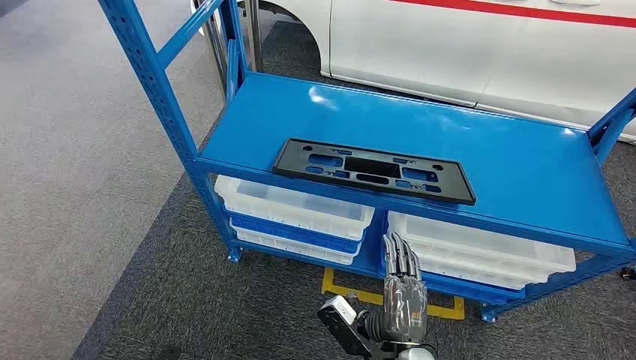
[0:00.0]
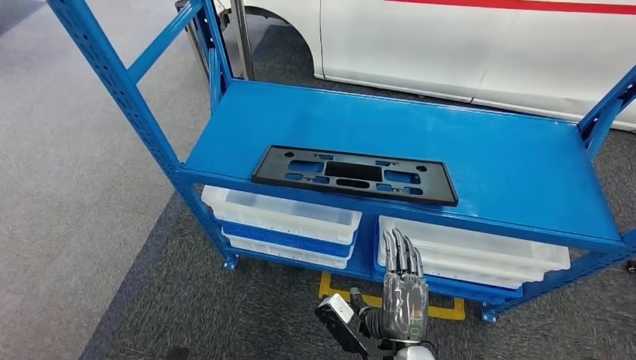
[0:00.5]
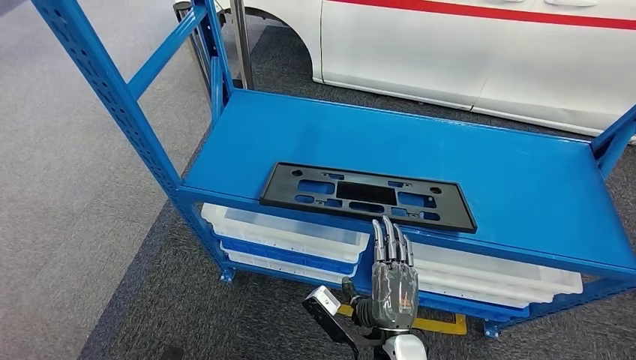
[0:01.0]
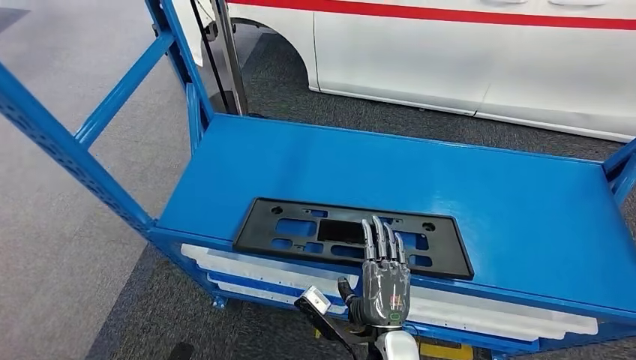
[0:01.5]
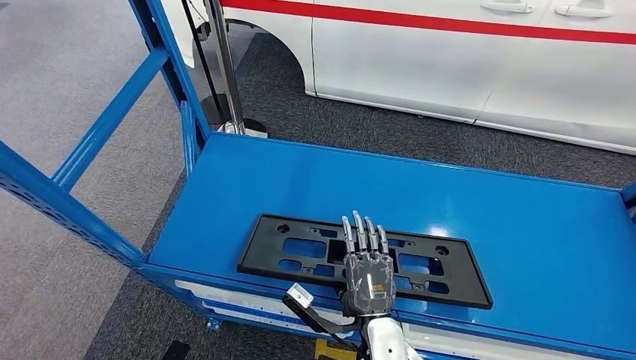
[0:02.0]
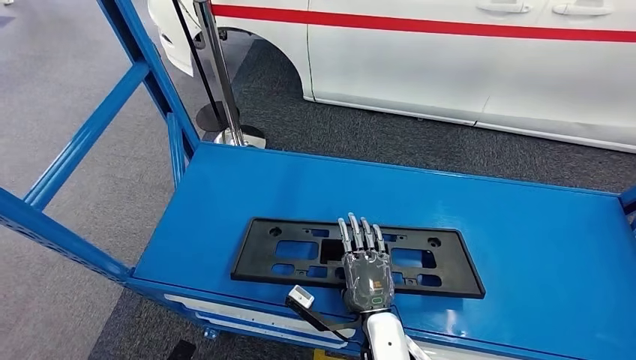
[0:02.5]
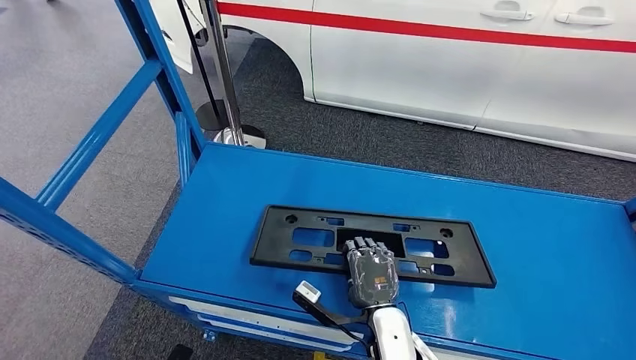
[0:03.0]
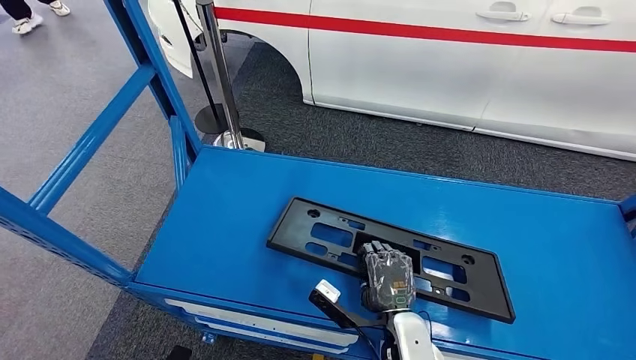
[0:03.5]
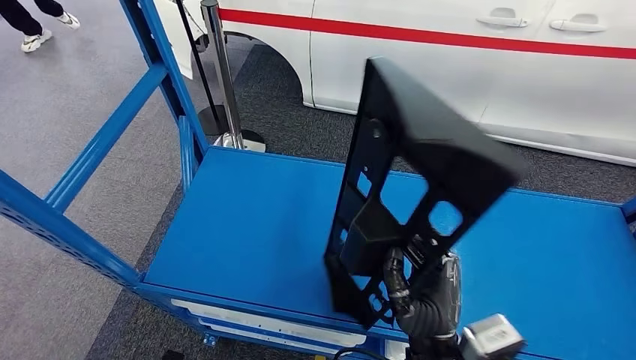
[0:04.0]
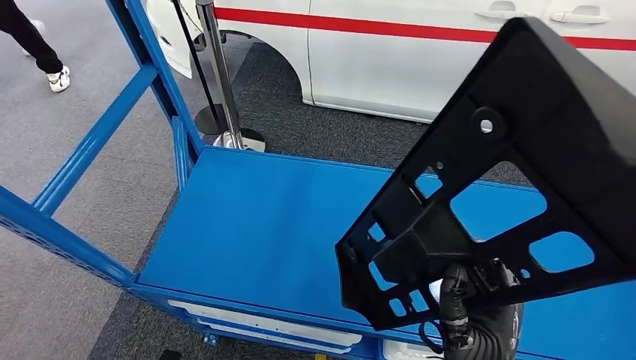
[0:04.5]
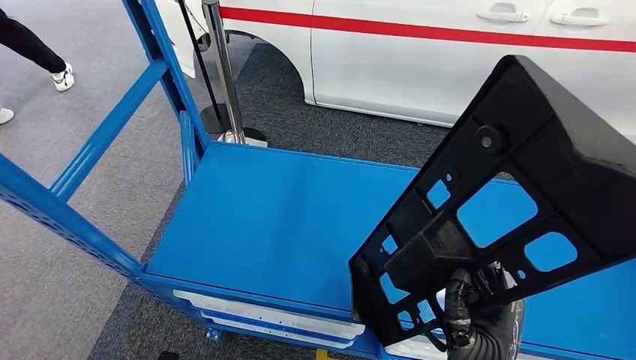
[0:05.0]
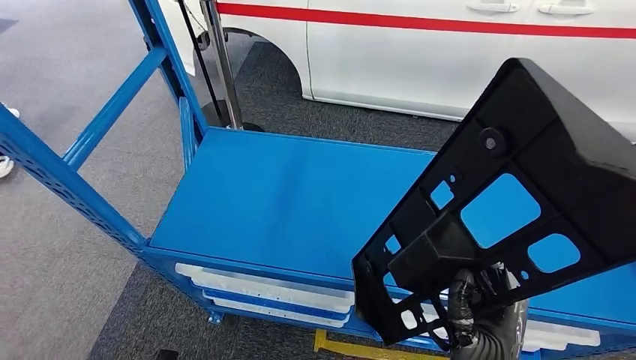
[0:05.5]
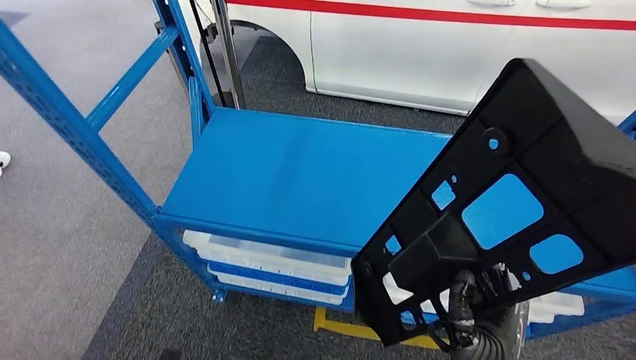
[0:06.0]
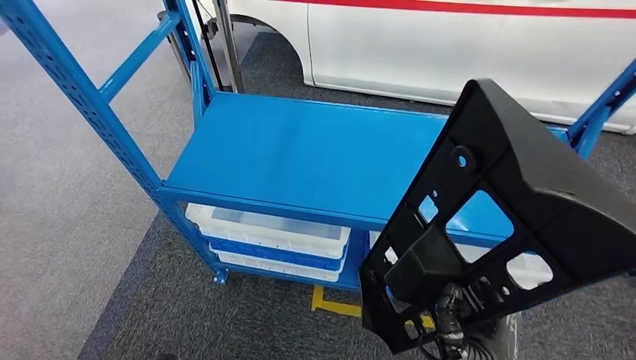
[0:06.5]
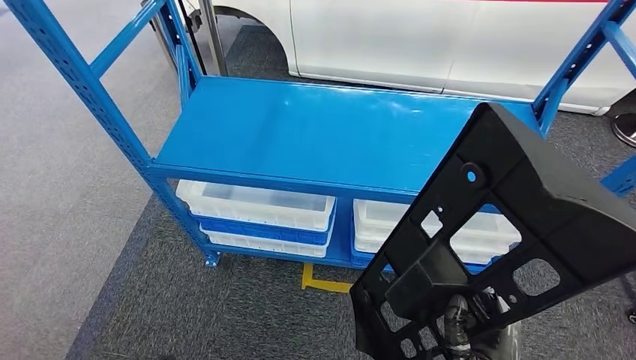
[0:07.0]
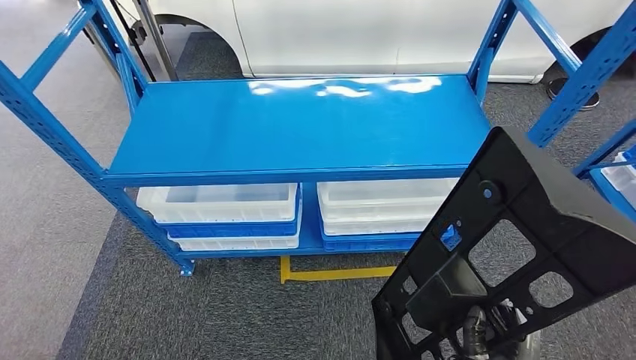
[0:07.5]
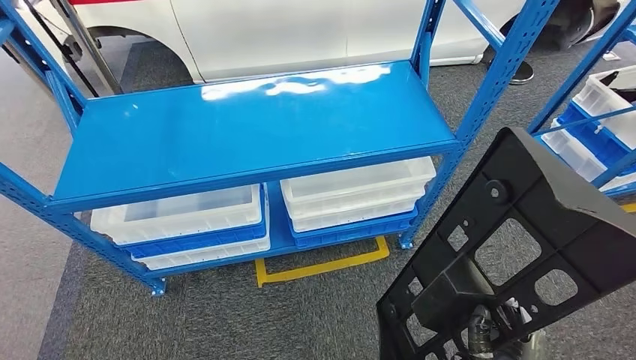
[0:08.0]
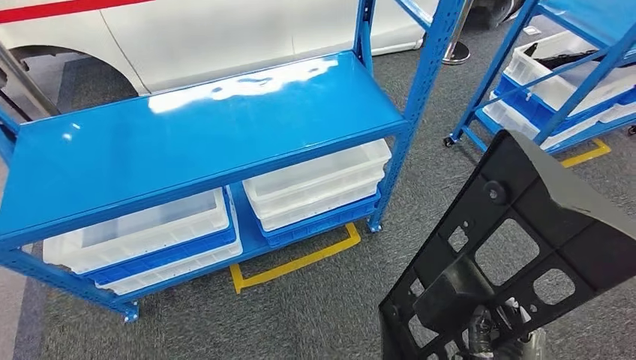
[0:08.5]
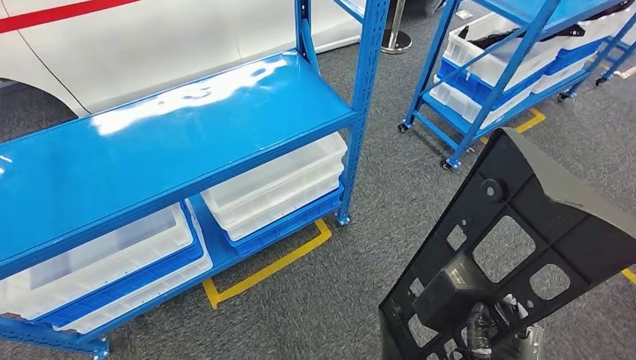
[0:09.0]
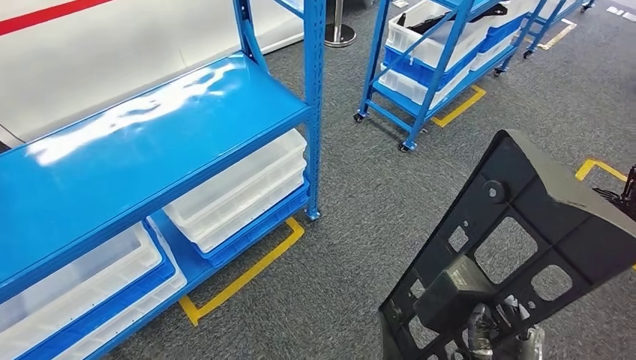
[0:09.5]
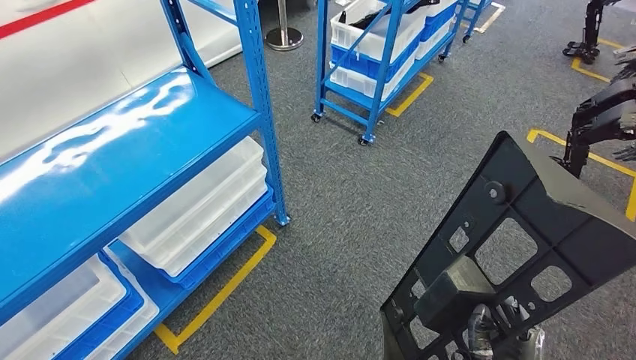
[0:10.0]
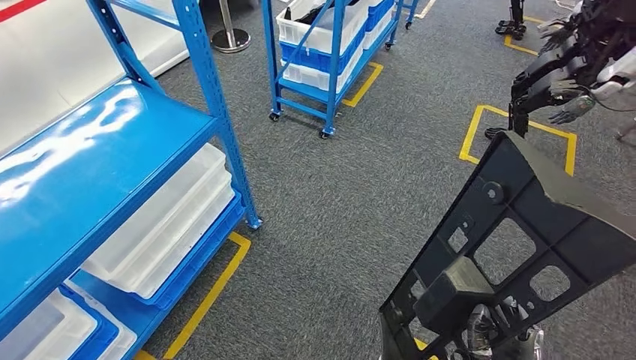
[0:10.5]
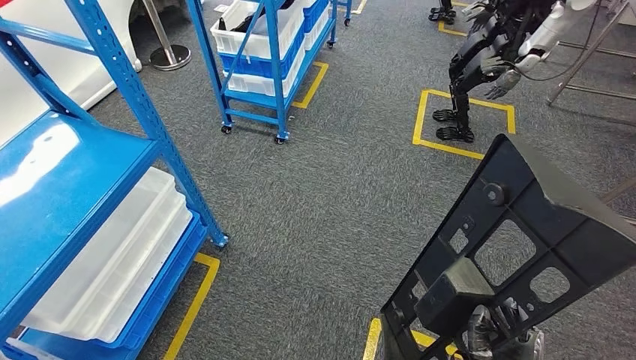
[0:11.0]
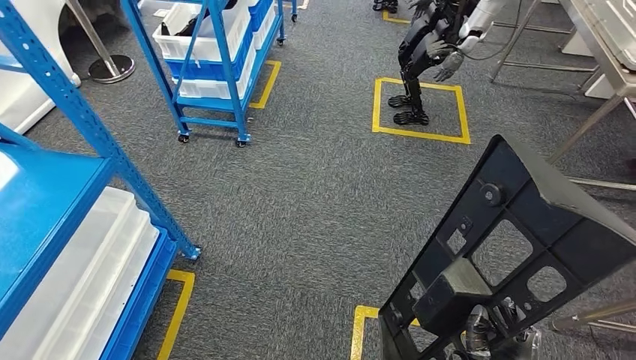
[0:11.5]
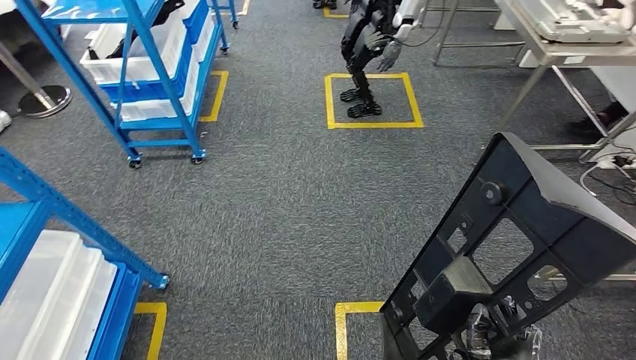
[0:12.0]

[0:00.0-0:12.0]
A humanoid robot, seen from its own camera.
Step, 0:00.0 to 0:05.0: Pick up the large material from the shelf.

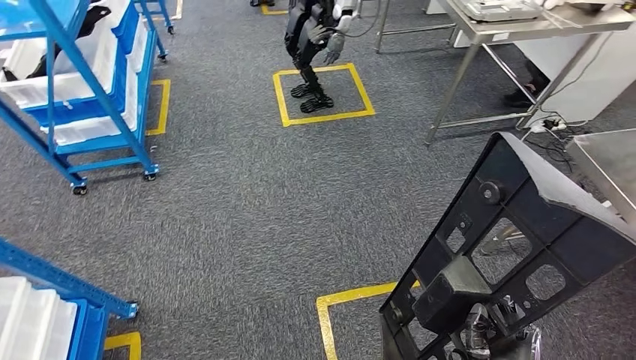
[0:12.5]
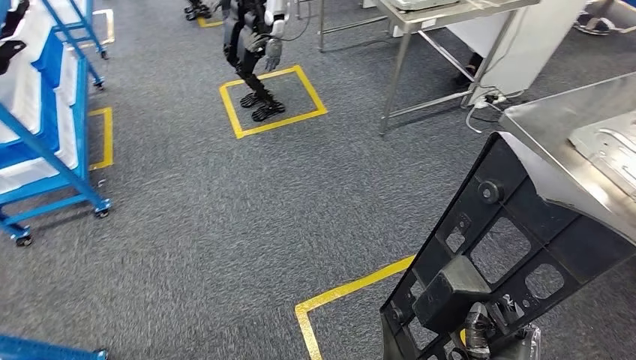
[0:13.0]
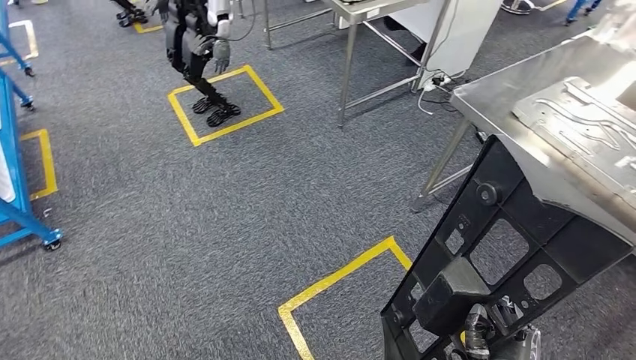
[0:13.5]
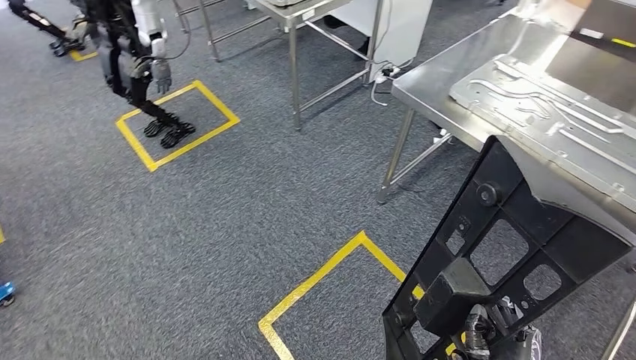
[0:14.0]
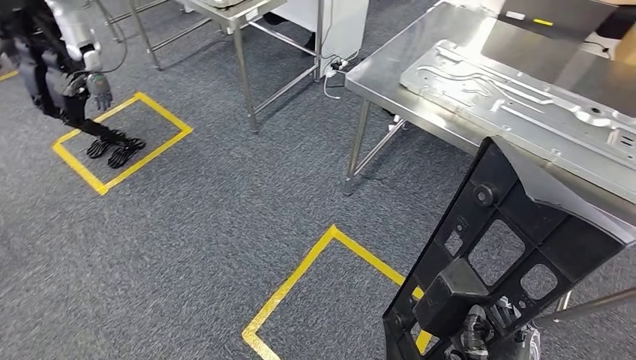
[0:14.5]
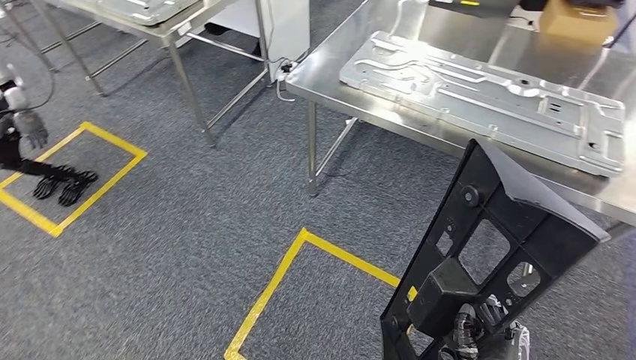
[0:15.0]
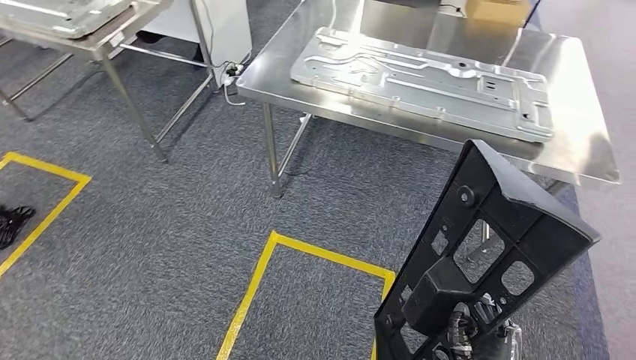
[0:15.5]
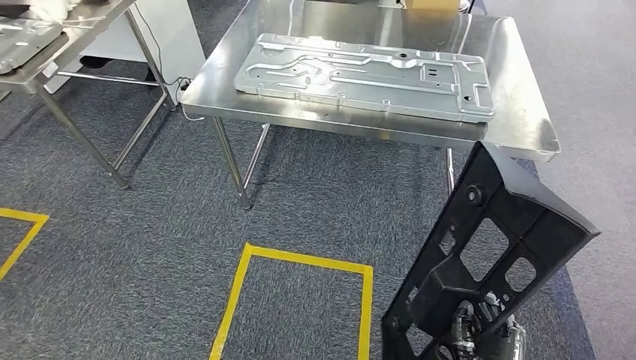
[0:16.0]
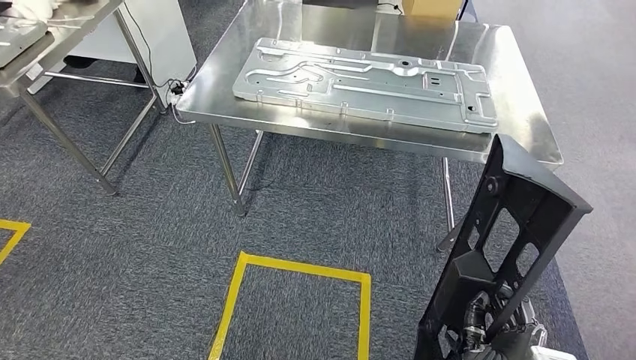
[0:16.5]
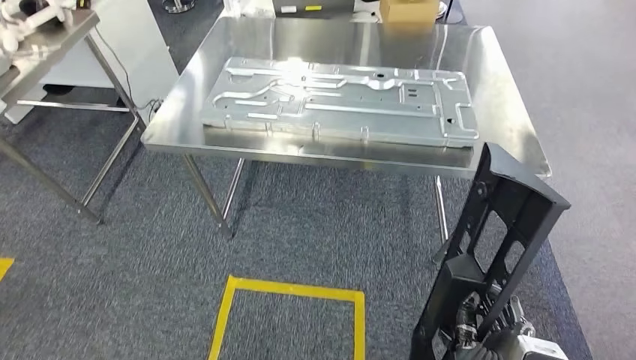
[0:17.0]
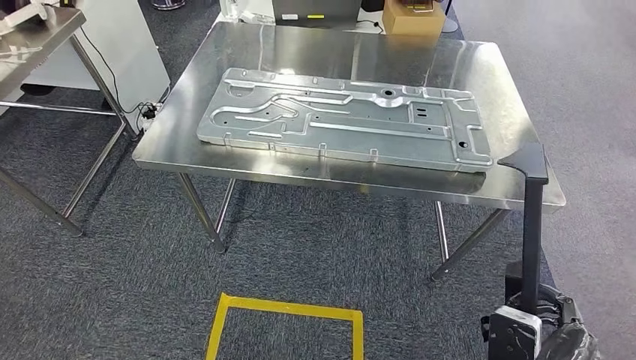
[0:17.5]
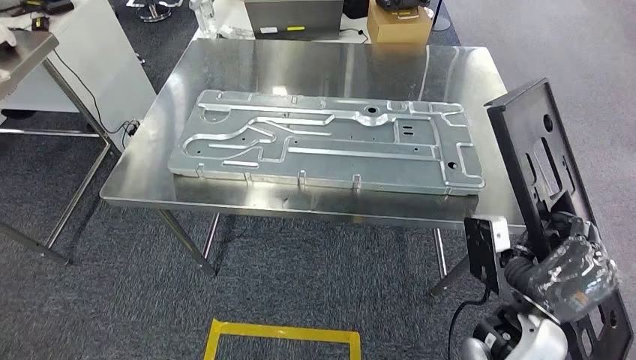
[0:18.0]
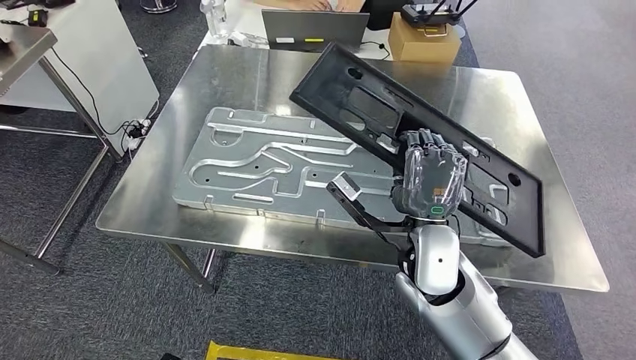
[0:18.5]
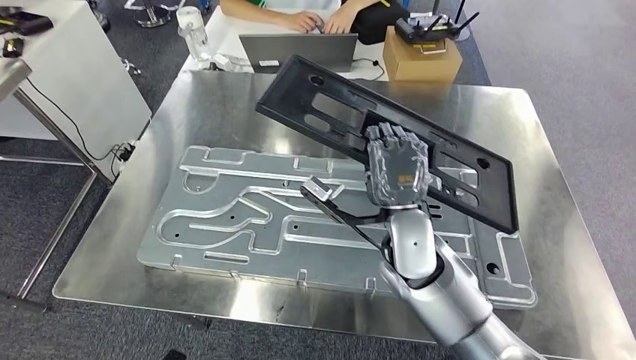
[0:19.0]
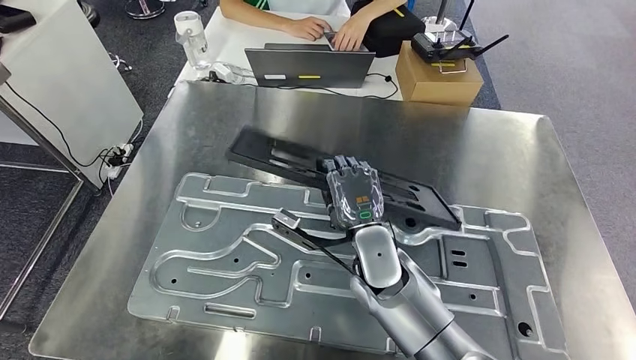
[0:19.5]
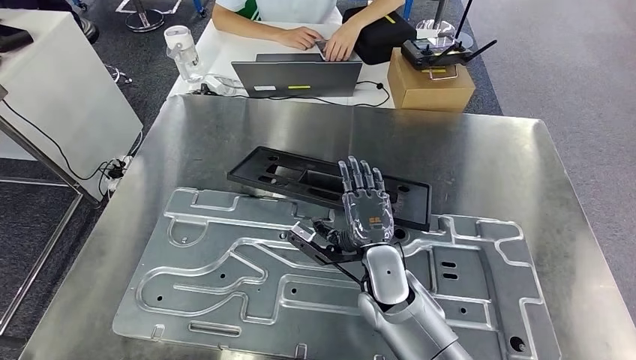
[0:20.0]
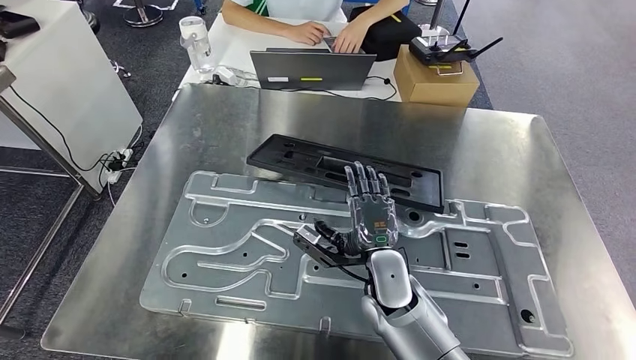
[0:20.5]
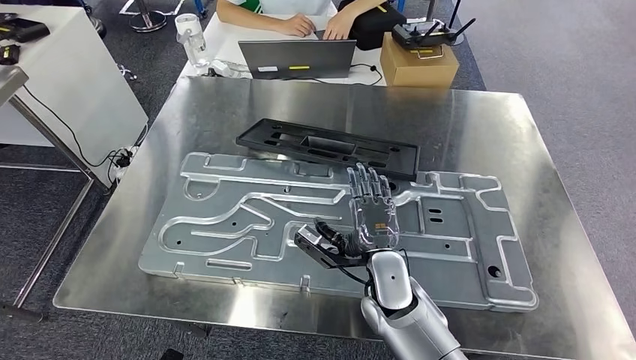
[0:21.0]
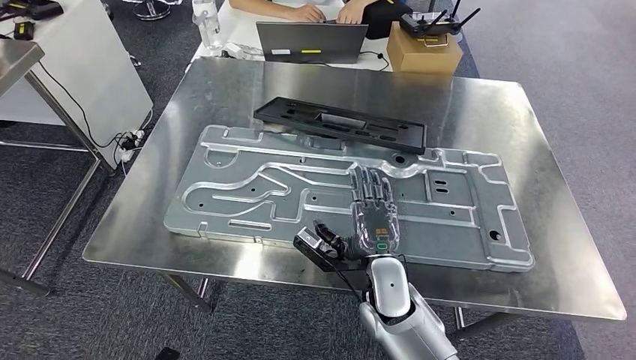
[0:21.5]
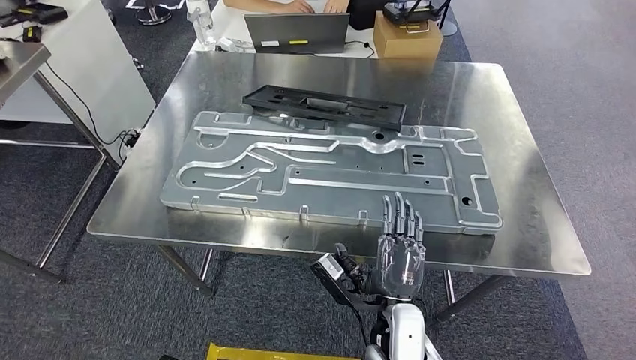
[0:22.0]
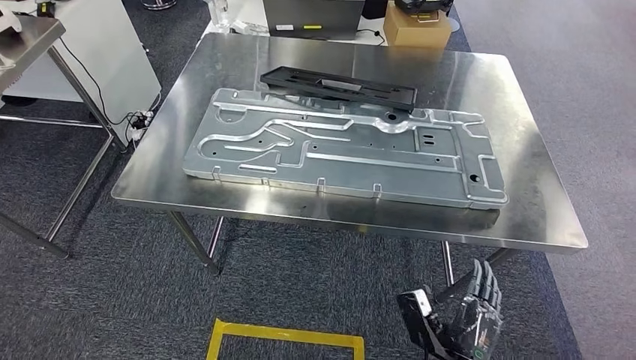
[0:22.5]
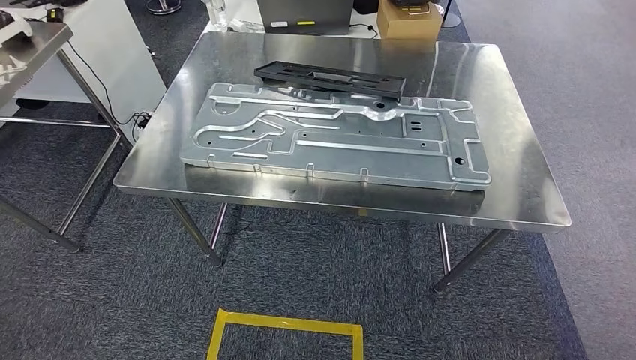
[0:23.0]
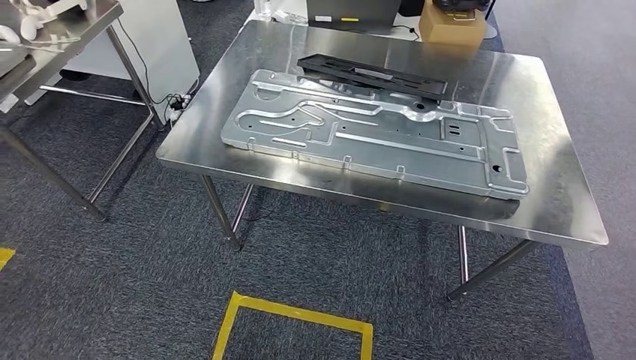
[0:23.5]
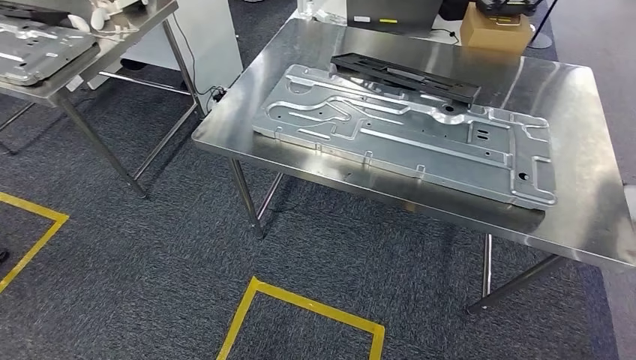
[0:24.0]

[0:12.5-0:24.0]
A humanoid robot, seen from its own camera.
Step, 0:12.5 to 0:19.0: Move the large material to the workbench.
Step, 0:19.5 to 0:22.0: Insert the large material into the corresponding slot on the workbench.
